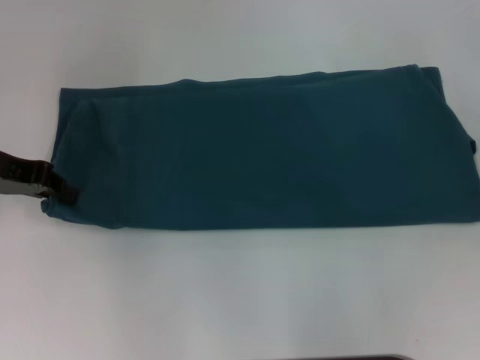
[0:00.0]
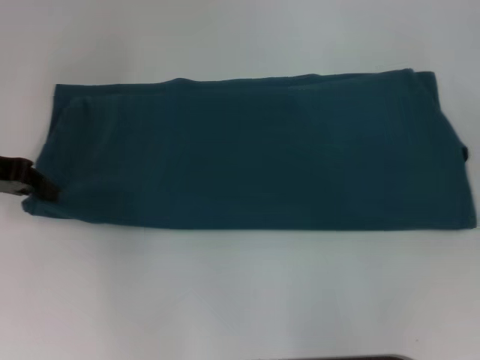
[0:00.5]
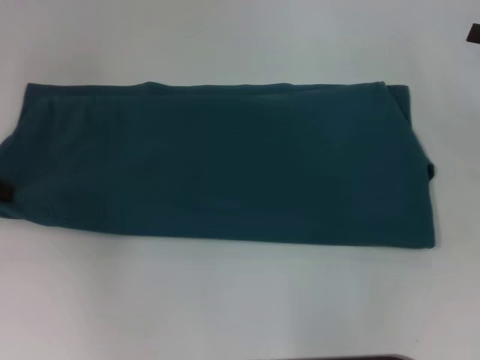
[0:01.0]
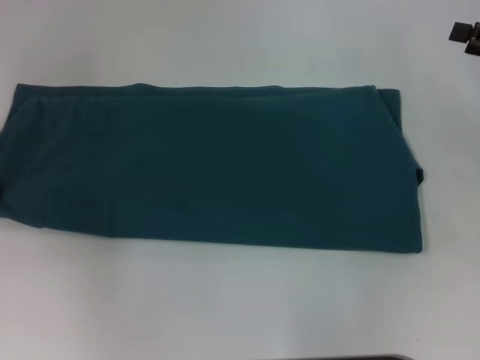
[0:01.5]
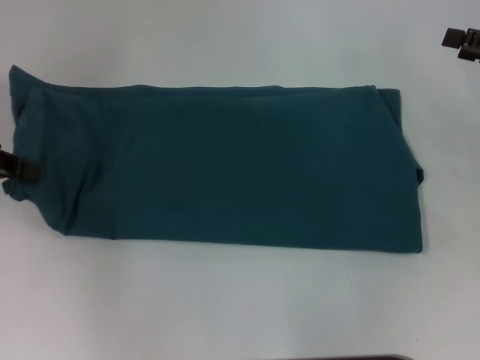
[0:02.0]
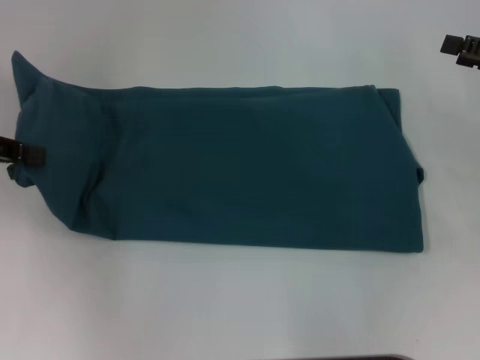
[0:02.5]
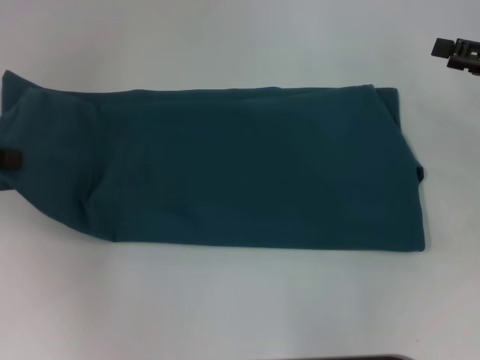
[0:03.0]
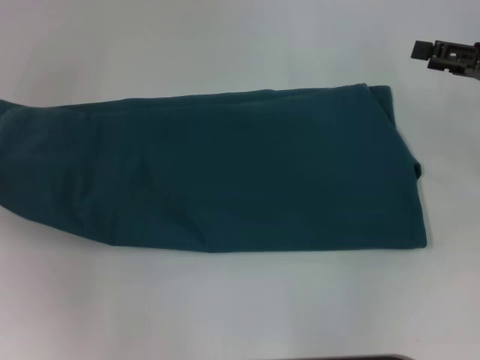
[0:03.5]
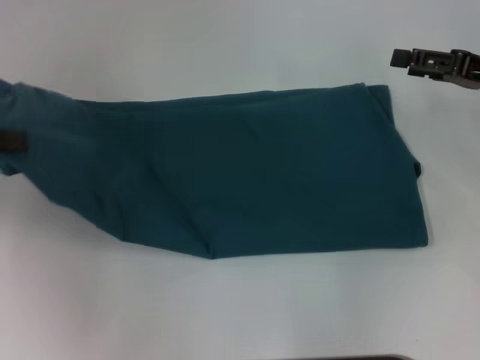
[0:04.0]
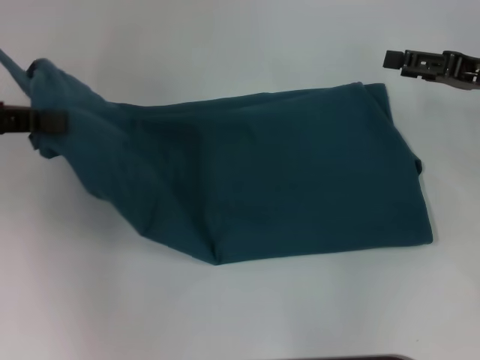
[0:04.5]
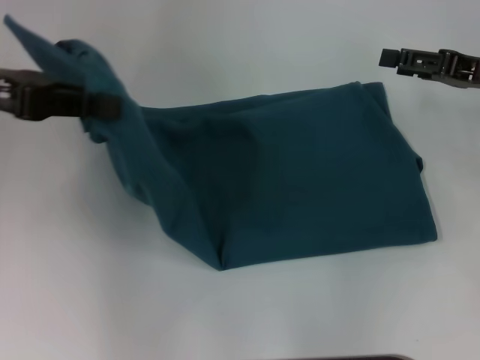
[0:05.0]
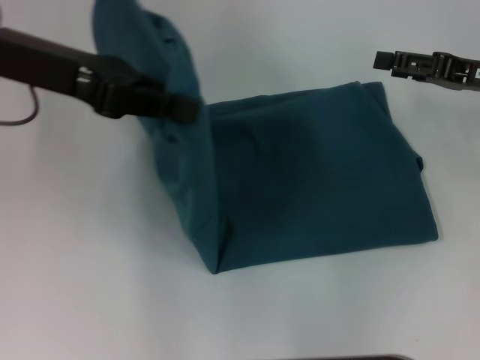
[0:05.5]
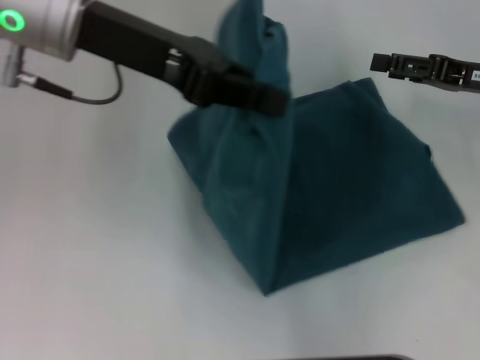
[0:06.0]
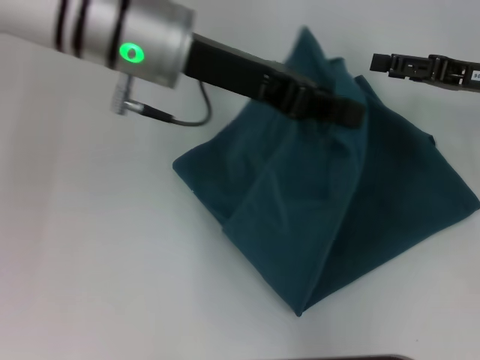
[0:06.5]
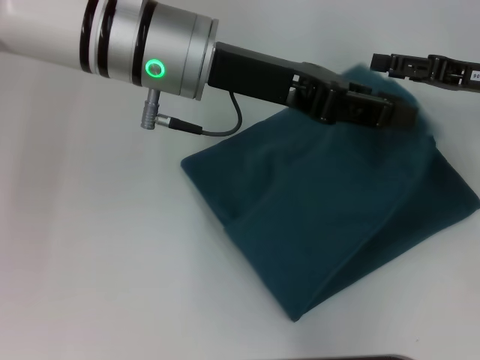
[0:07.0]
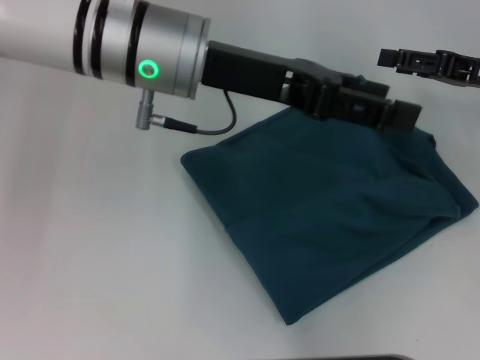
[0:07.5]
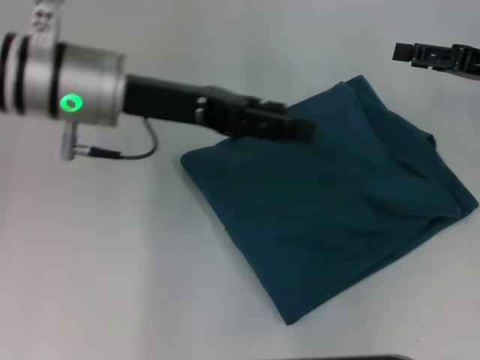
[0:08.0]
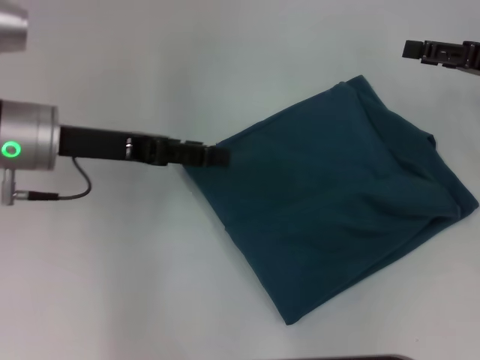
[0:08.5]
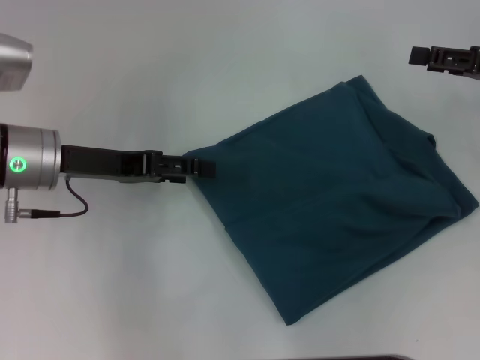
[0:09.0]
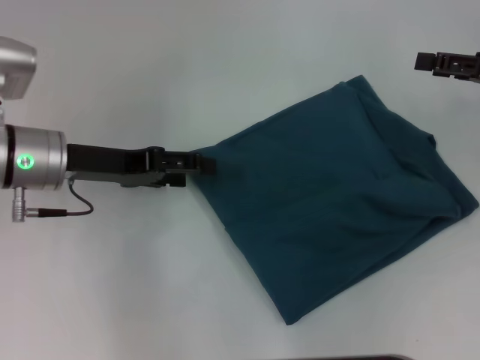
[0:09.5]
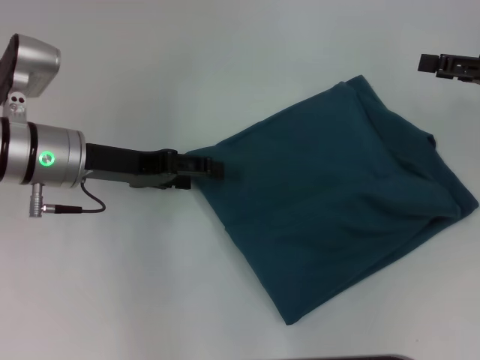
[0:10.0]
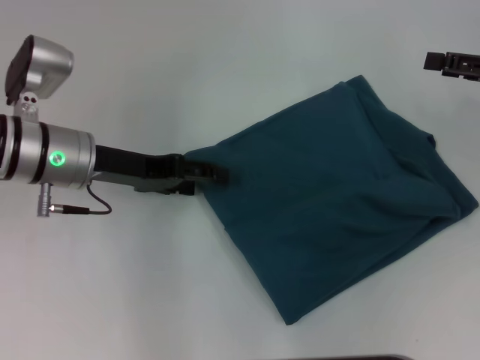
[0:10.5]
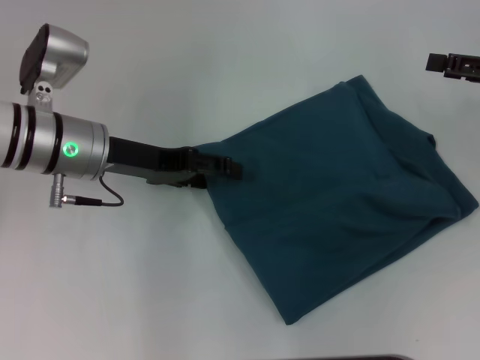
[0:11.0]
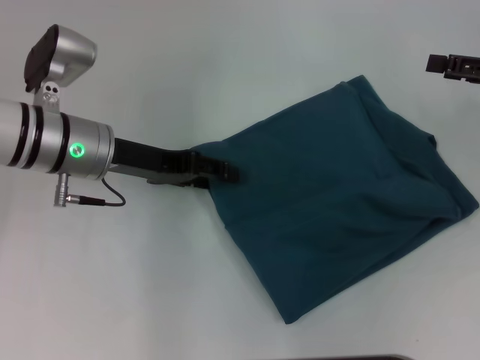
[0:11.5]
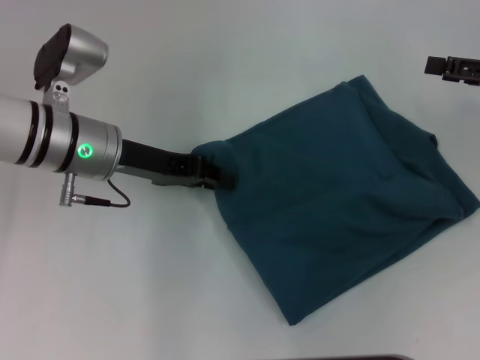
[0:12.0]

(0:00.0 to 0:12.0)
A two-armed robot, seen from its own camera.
Step, 0:00.0 - 0:07.0: Fold the clothes to the left.
0:00.0 - 0:02.0: The left gripper moves roughly 5 cm.
0:04.0 - 0:06.0: The left gripper travels to the right by roughly 20 cm.
0:06.0 - 0:08.0: The left gripper moves downward, some 10 cm, and opens up.
0:08.0 - 0:10.0: The left gripper heads downward and to the left, covering approximately 10 cm.
0:10.0 - 0:12.0: The left gripper closes.

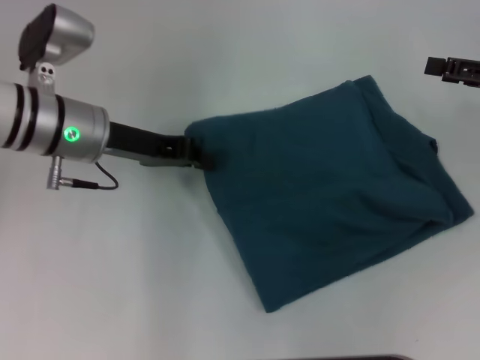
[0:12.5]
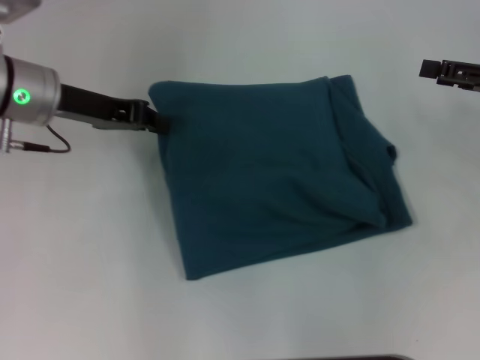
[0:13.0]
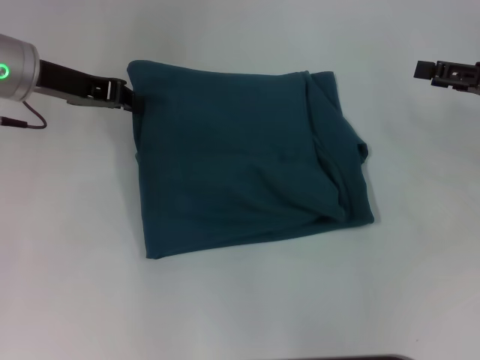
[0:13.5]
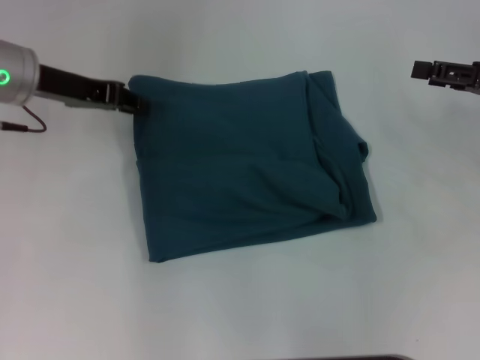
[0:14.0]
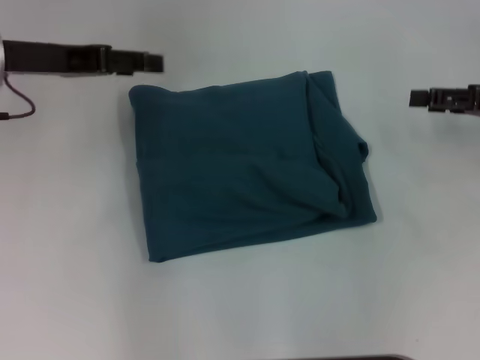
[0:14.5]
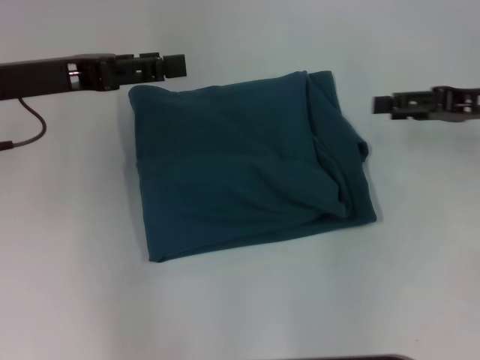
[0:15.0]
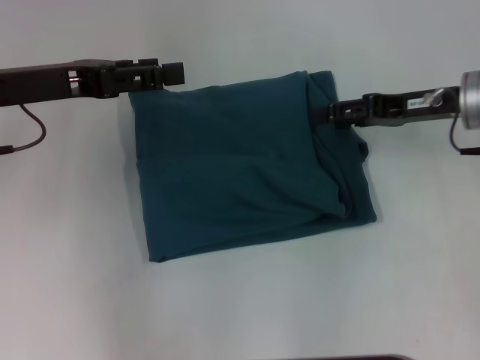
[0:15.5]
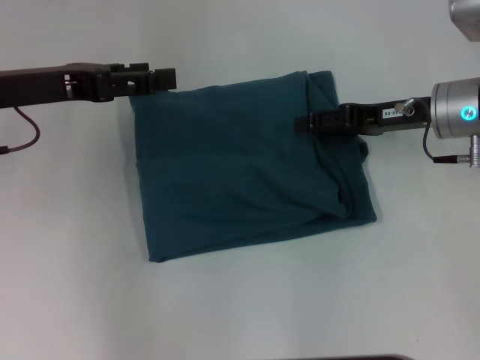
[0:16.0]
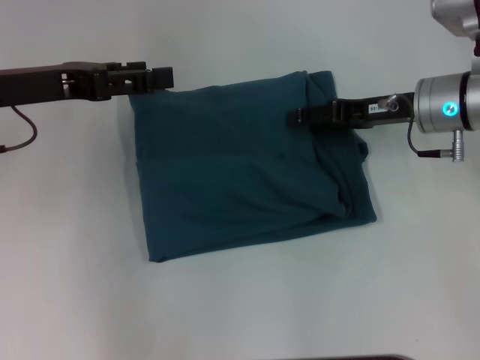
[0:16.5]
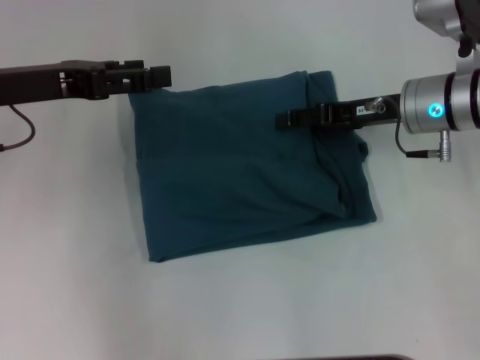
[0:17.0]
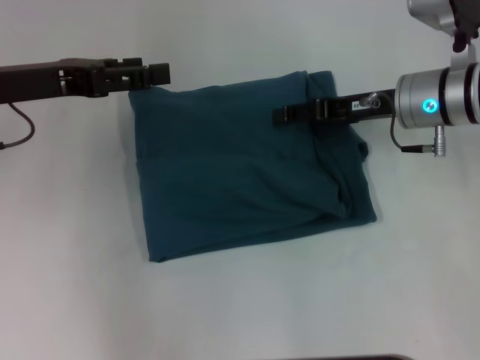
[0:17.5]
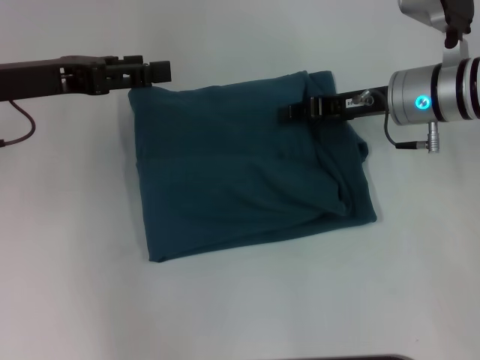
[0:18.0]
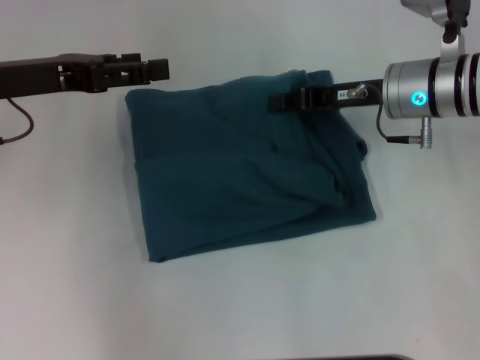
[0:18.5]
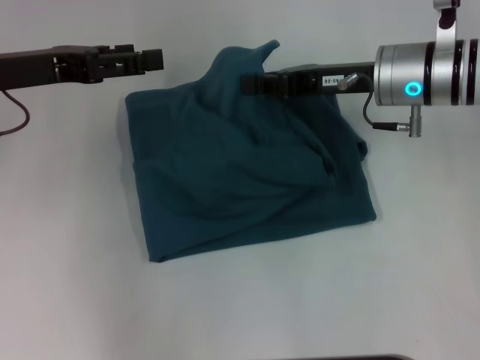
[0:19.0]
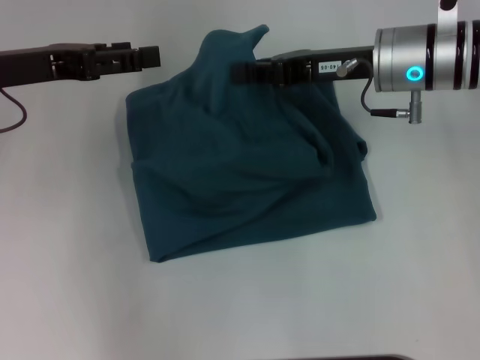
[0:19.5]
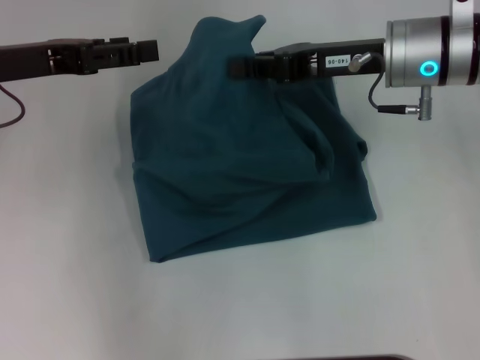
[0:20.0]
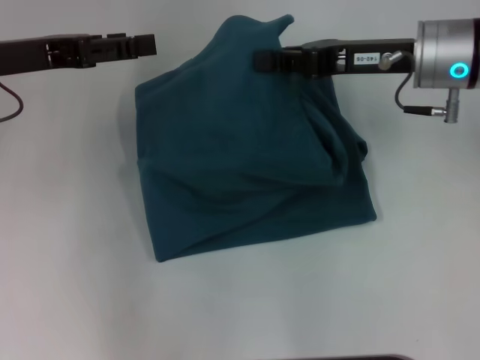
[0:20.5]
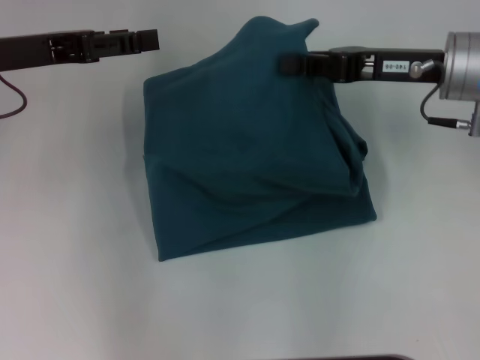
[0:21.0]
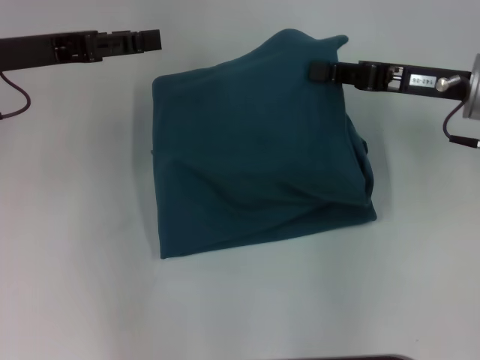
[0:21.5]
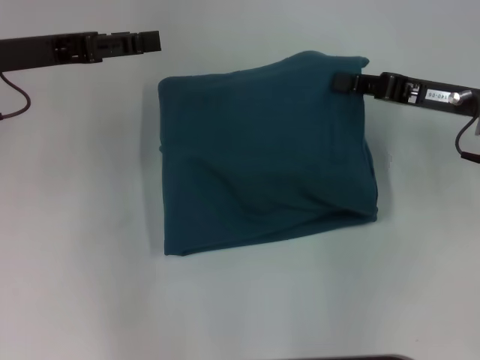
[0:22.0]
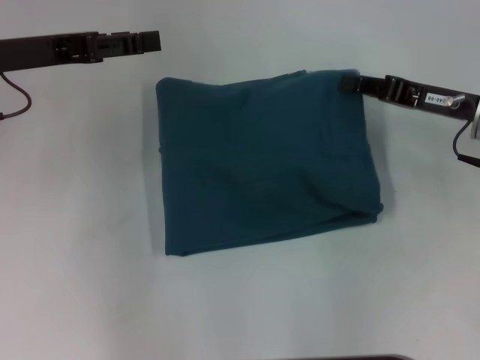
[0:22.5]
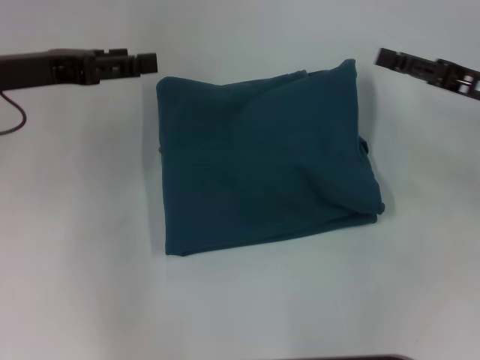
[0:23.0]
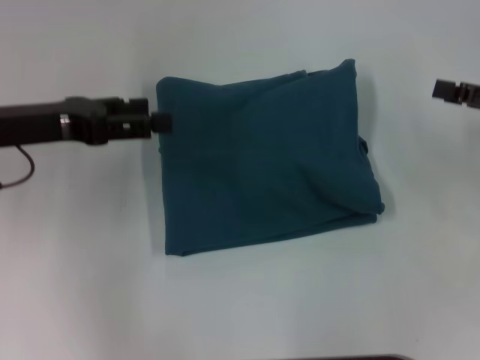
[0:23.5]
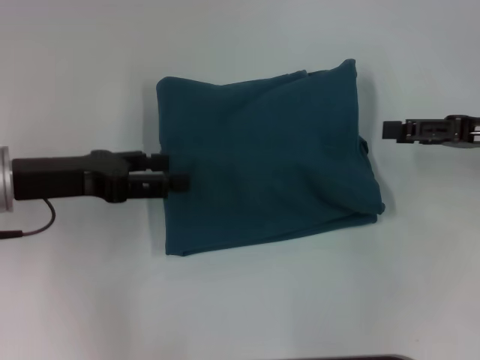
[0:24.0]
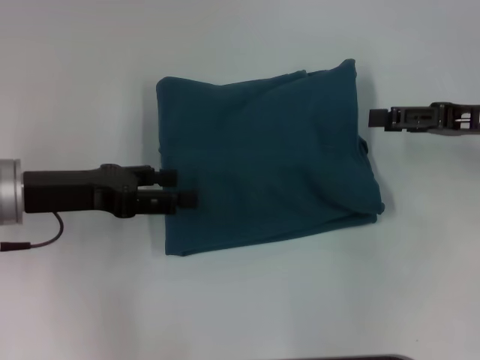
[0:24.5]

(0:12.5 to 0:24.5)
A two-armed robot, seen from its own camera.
0:12.5 - 0:14.5: The left gripper heads upward and to the left, covering roughly 10 cm, and opens.
0:14.5 - 0:16.5: The right gripper goes about 15 cm to the left.
0:16.5 - 0:18.5: The right gripper closes its fingers.
0:18.5 - 0:20.5: The right gripper moves upward, roughly 5 cm.
0:20.5 - 0:22.5: The right gripper travels to the right and downward by some 10 cm.
0:22.5 - 0:24.5: The left gripper travels backward and downward by roughly 10 cm; the right gripper opens up.

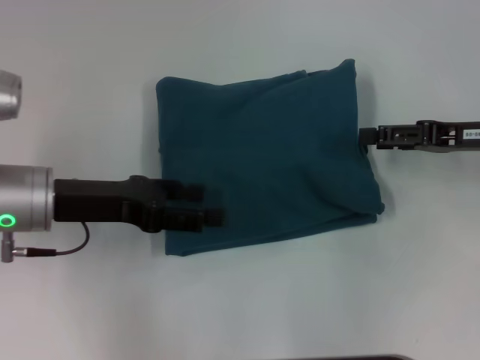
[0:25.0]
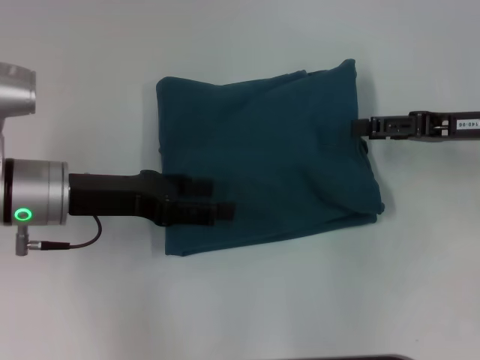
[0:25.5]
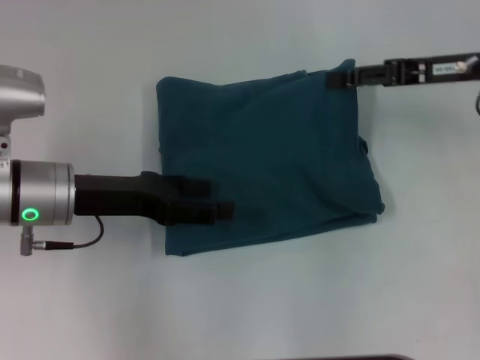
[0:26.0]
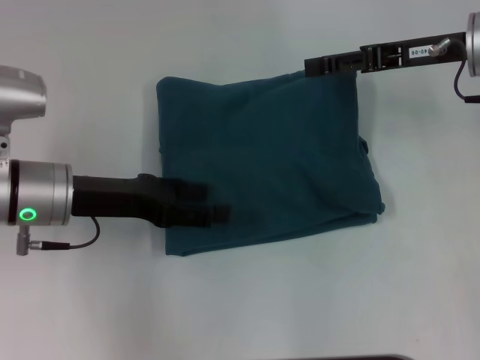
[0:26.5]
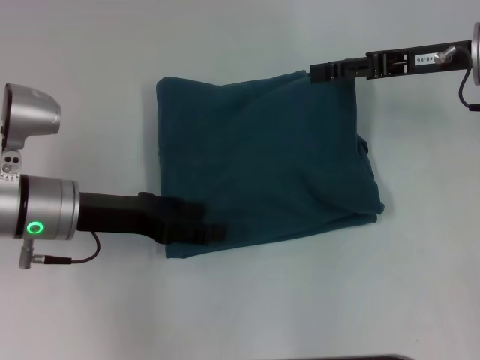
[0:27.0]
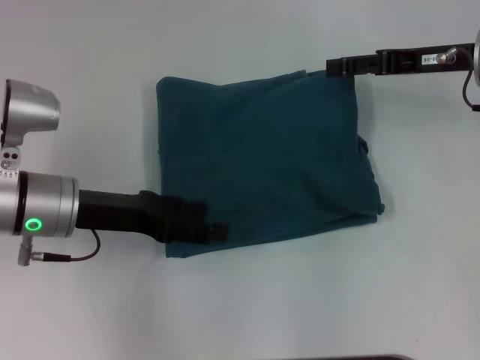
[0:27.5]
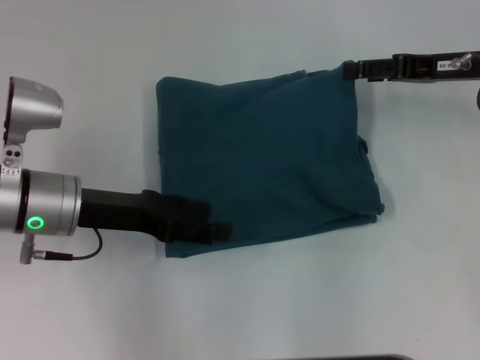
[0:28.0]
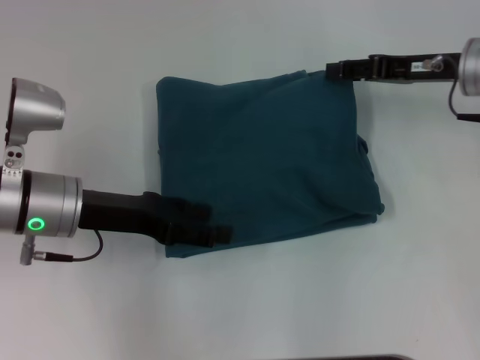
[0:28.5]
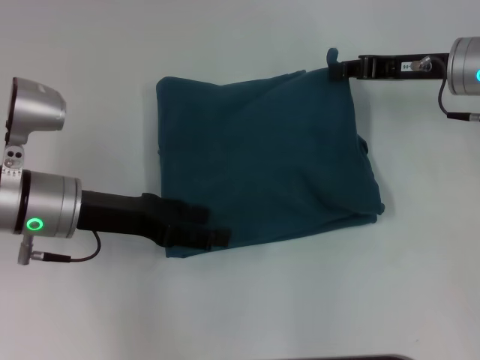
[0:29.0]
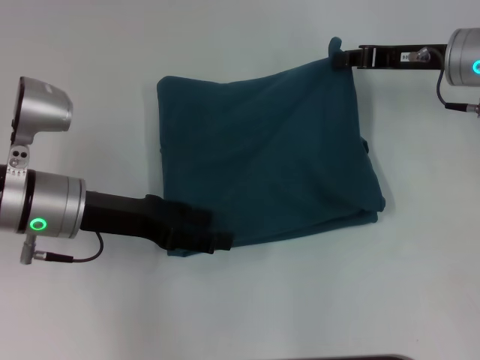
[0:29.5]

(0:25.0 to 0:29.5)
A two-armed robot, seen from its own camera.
0:25.0 - 0:27.0: The right gripper travels forward and to the left by some 10 cm.
0:27.0 - 0:29.5: The right gripper closes.
